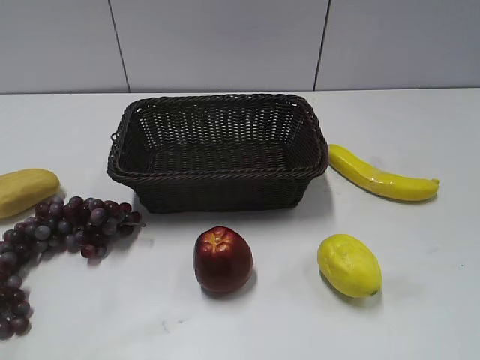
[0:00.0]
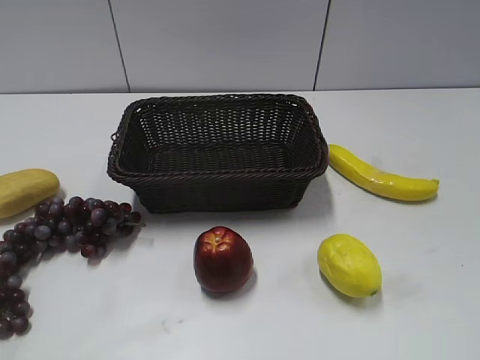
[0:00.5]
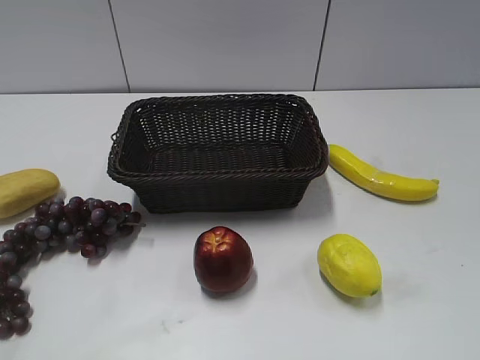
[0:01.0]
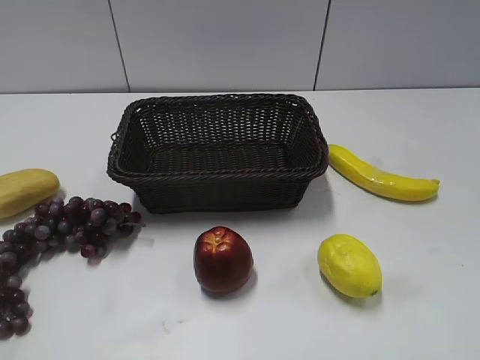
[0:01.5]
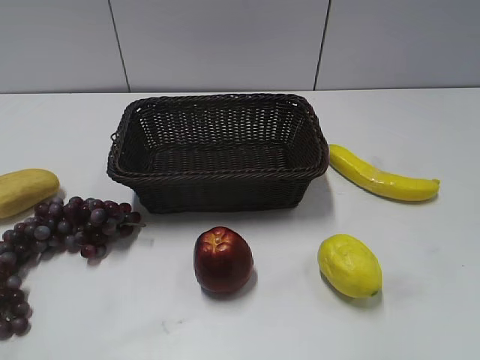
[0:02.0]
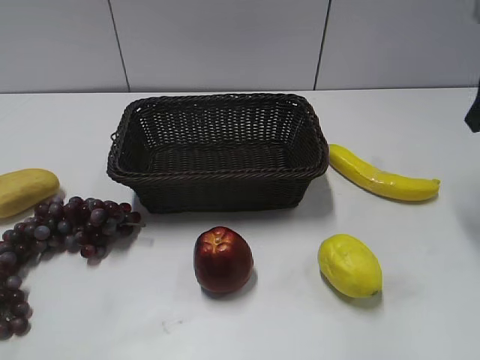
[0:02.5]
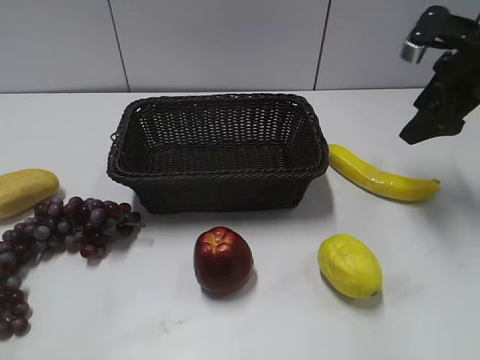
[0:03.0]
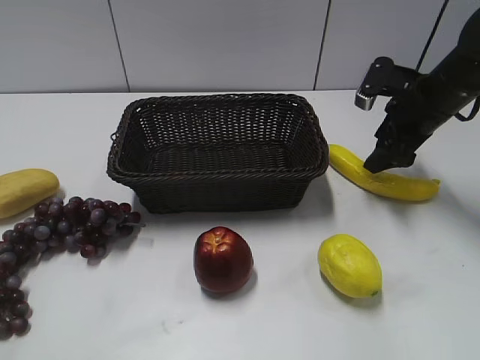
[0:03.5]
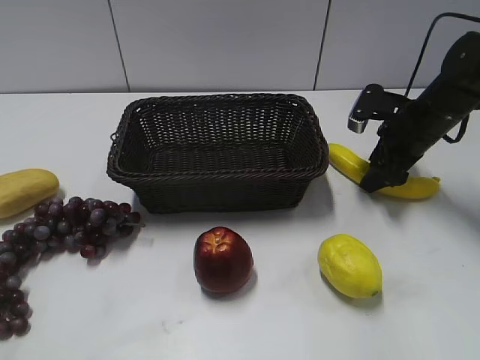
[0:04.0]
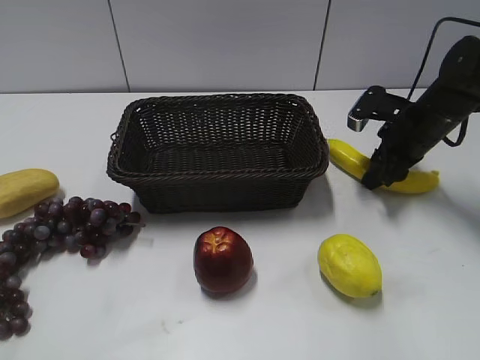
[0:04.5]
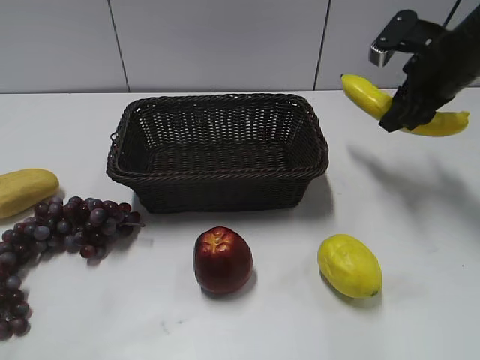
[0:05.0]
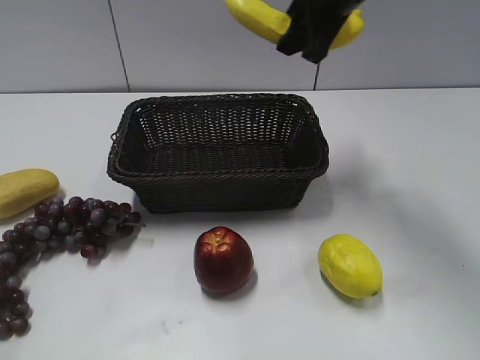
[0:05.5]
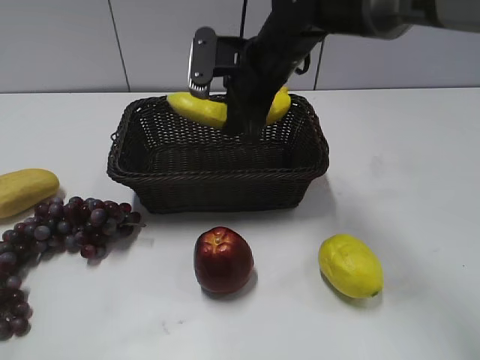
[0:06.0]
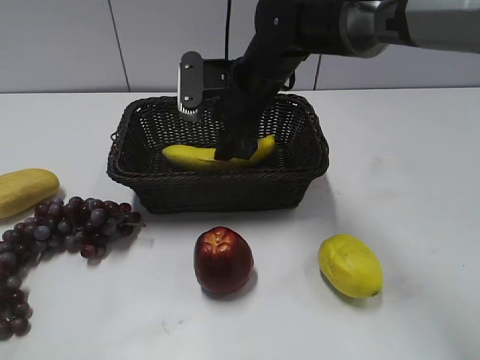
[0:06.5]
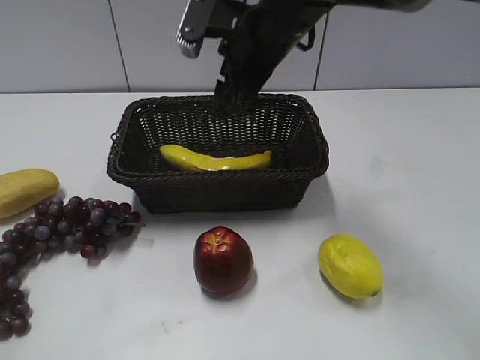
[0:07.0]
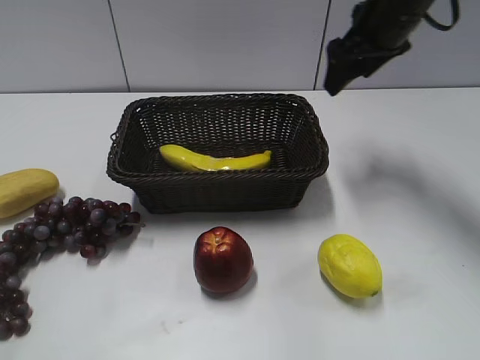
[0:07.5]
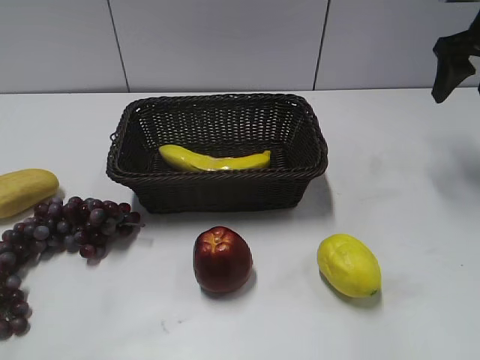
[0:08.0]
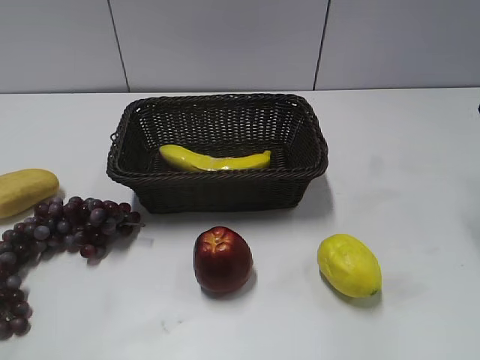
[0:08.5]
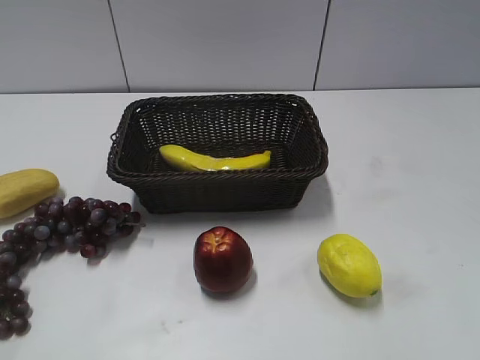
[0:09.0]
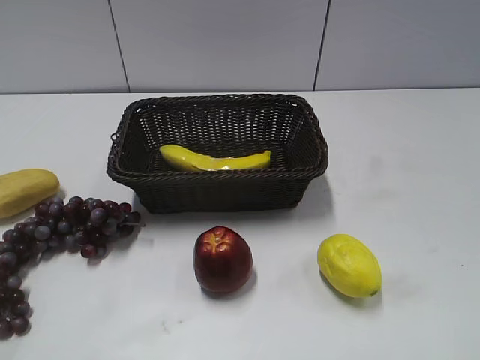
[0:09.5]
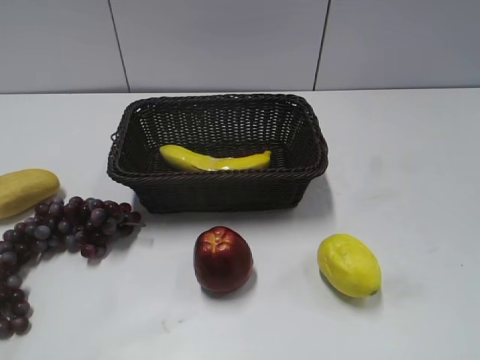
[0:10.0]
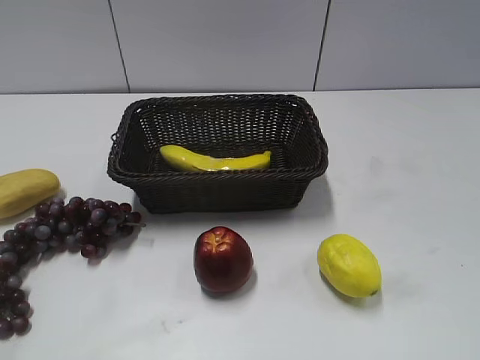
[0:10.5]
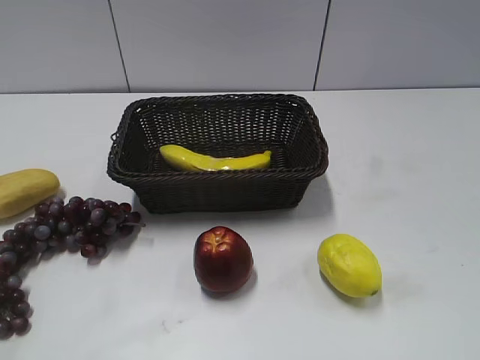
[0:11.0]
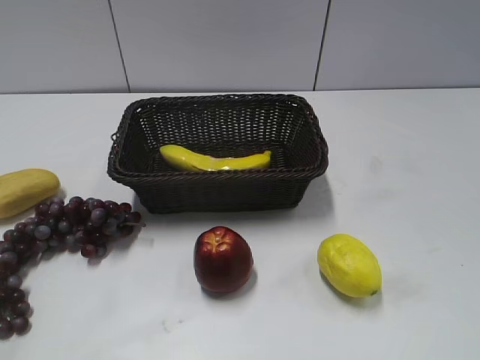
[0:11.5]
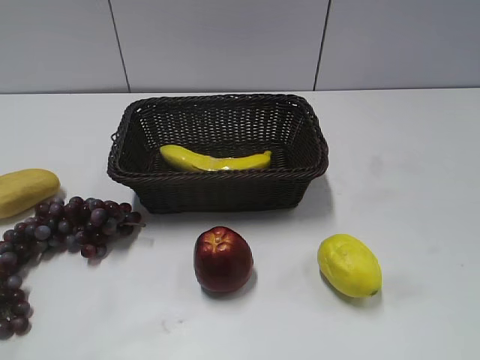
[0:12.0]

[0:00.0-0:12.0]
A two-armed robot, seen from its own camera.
Step, 0:01.0 to 0:04.0: Grasp the banana with right gripper.
Step, 0:04.5 to 0:06.5: Place the banana in the basket with right gripper.
0:02.0 to 0:04.0: The right gripper heads forward and downward, covering approximately 25 cm.
0:04.0 to 0:06.0: The right gripper travels to the left by roughly 20 cm, and closes up.
0:06.0 to 0:08.0: The right gripper heads to the right, covering some 25 cm, and opens.
0:08.0 to 0:10.0: The right gripper is displaced backward by some 40 cm.
